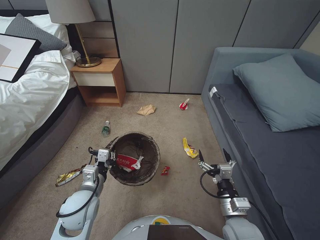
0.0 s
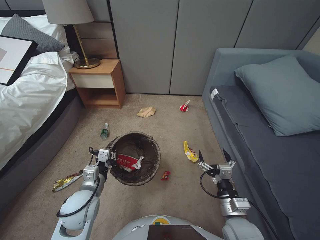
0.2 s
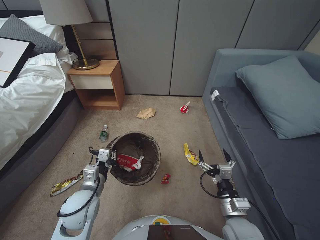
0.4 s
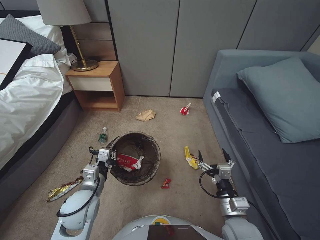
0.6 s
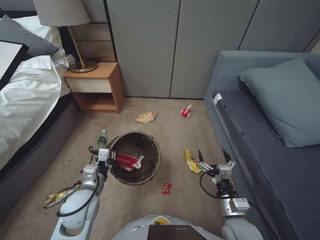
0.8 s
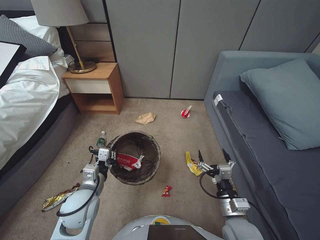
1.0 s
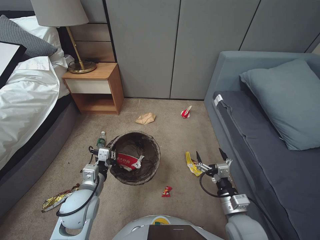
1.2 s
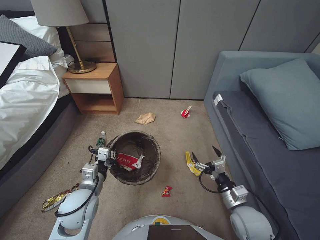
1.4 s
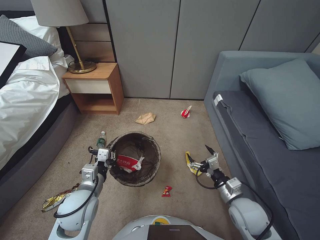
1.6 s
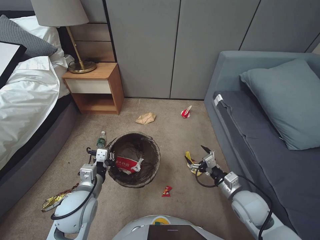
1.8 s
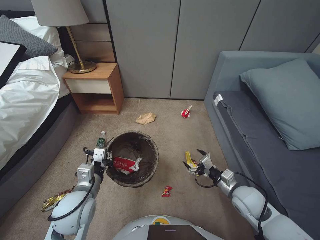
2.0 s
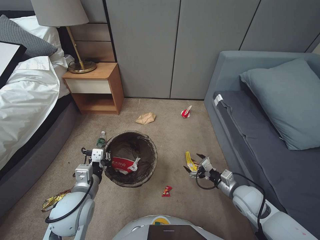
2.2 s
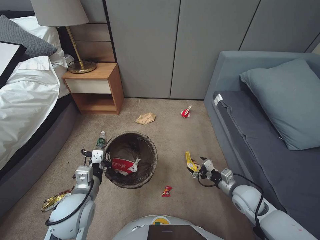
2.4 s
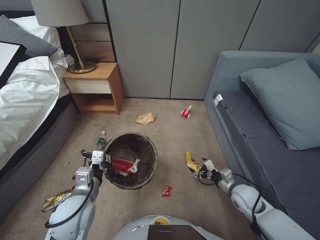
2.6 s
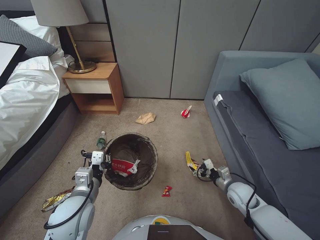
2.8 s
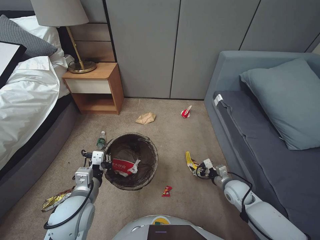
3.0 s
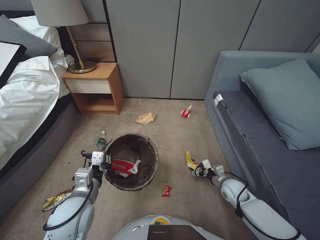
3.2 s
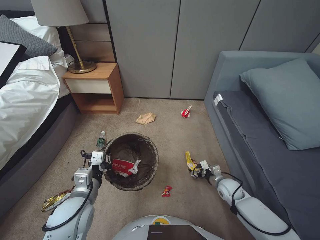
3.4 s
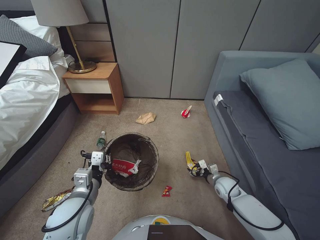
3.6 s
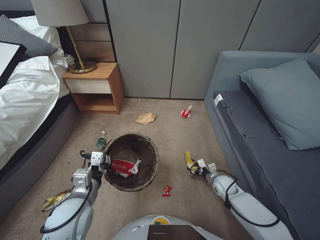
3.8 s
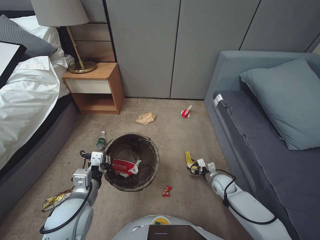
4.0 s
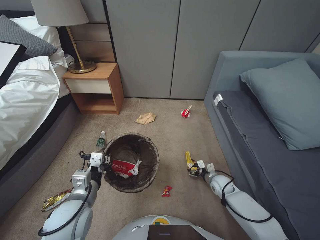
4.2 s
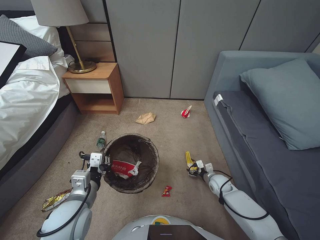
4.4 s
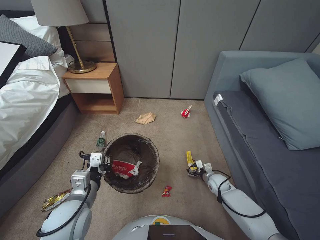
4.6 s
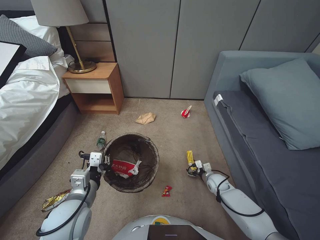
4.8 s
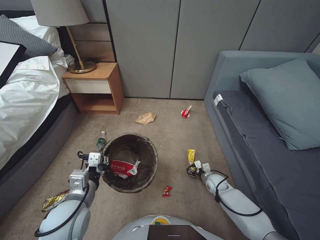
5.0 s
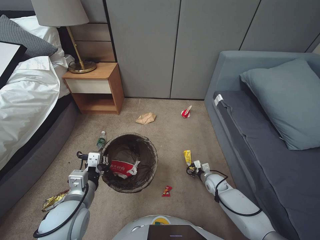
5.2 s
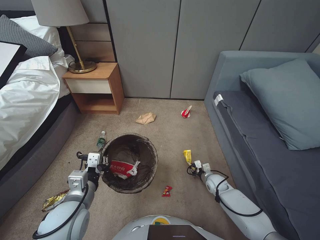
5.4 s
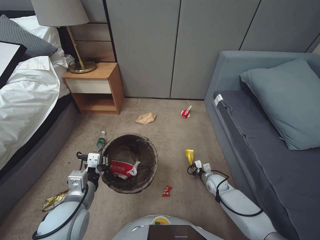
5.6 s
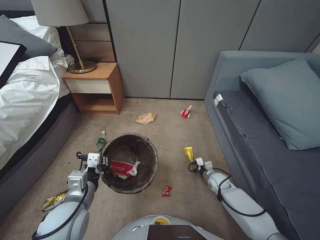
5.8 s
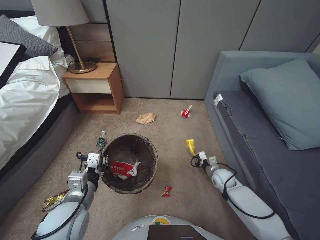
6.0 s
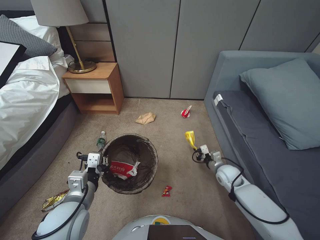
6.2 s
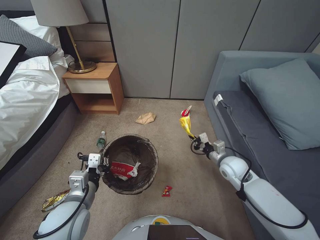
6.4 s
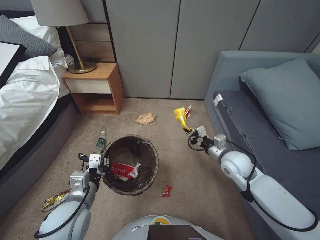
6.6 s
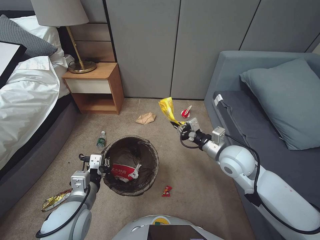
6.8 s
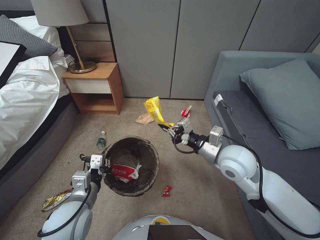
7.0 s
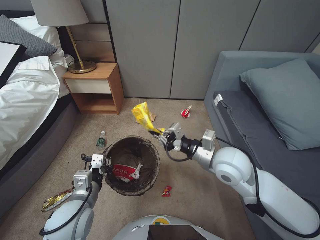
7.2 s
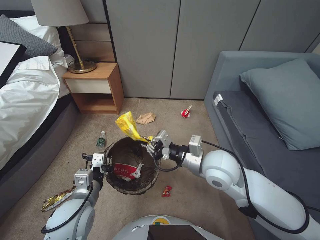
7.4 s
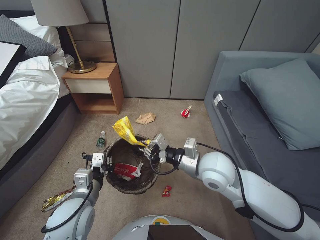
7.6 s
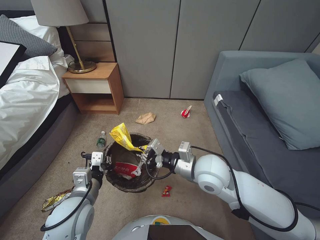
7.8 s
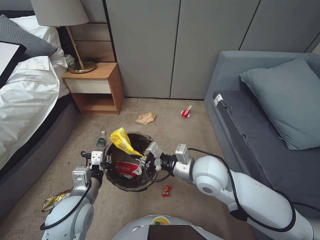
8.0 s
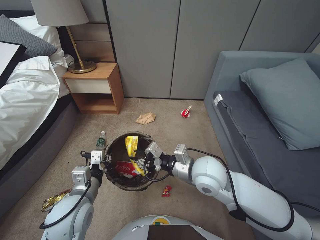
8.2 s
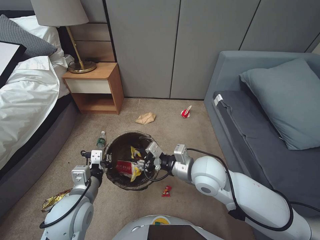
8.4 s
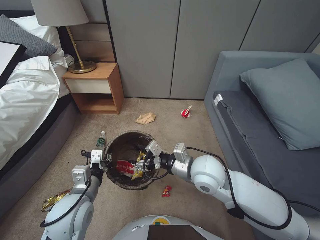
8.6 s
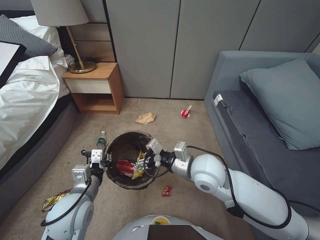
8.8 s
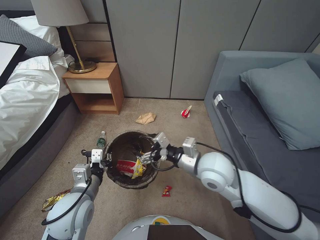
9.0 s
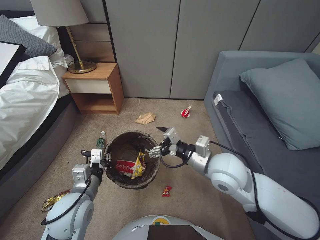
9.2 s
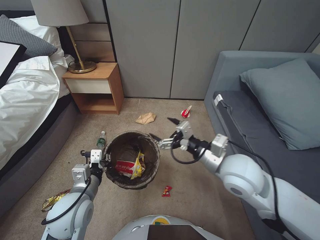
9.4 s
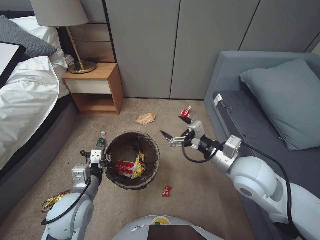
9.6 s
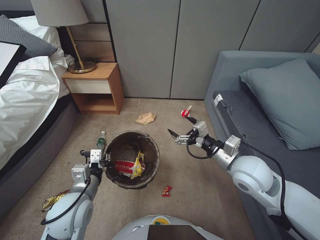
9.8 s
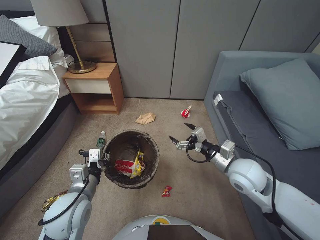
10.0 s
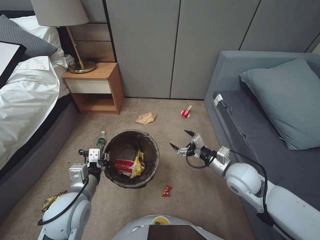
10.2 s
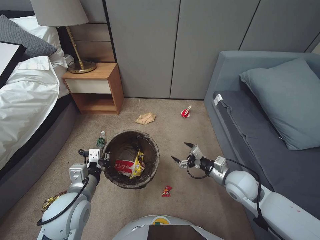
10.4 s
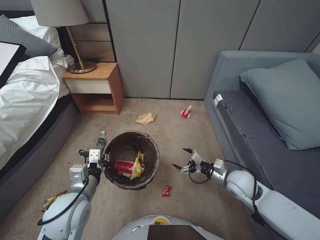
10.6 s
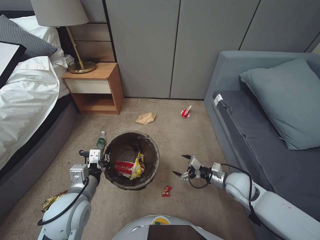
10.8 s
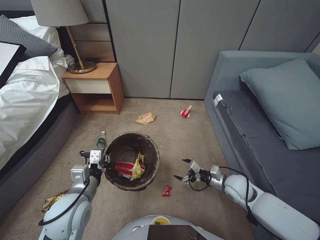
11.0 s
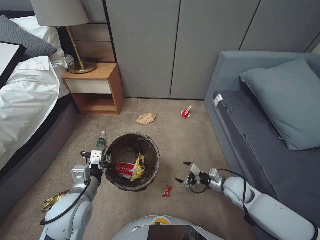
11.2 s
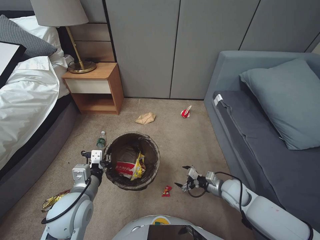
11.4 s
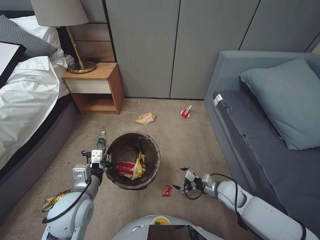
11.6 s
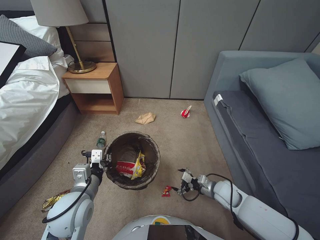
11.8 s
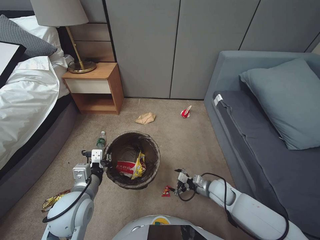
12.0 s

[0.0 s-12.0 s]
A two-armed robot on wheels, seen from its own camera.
Task of the whole recording: Pick up the trash bin, then pick up the garbage from the floor and place it into the trash bin.
0.0 to 1.6 s: The right gripper moves some 5 cm.
1.6 to 3.0 s: The right gripper shifts about 15 cm forward, downward and to the right.
3.0 to 4.4 s: The right gripper heads downward and forward, covering about 10 cm.
4.4 to 6.0 s: The right gripper closes.
6.0 to 7.6 s: The right gripper moves upward and to the left, approximately 35 cm.
7.6 to 9.0 s: The right gripper opens up.
9.0 to 10.4 s: The right gripper travels to the right and downward by some 15 cm.
10.4 to 12.0 s: The right gripper goes roughly 15 cm downward.

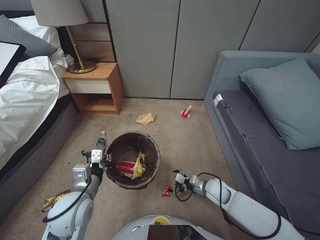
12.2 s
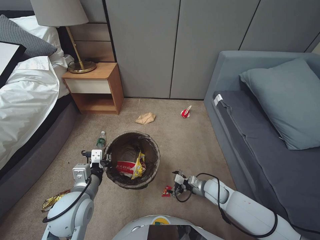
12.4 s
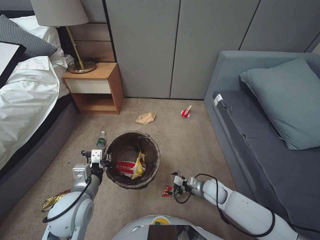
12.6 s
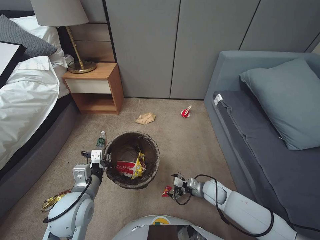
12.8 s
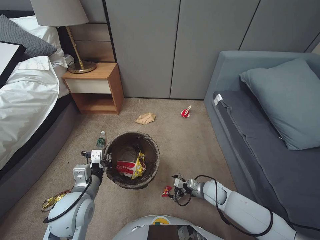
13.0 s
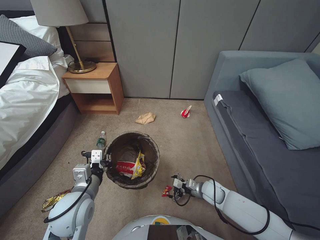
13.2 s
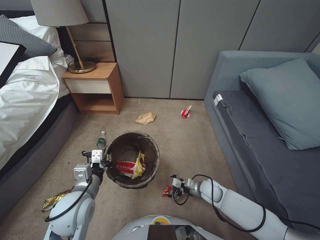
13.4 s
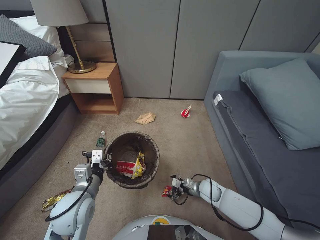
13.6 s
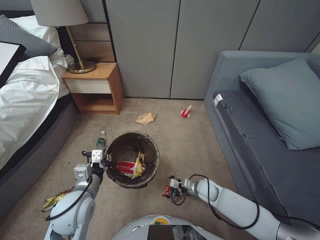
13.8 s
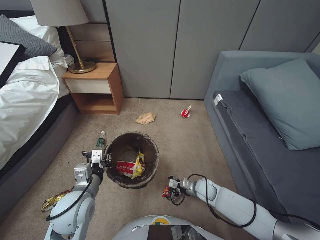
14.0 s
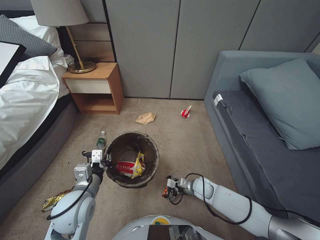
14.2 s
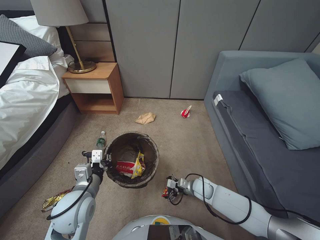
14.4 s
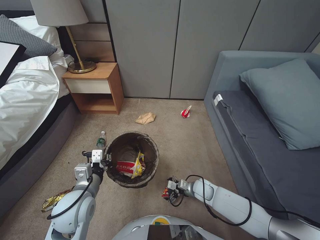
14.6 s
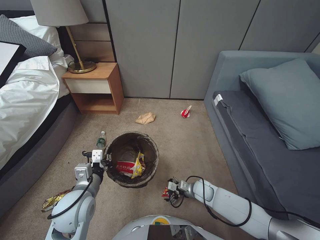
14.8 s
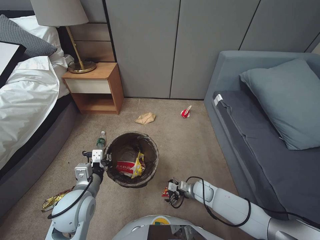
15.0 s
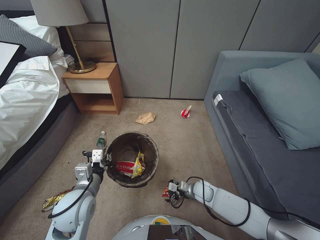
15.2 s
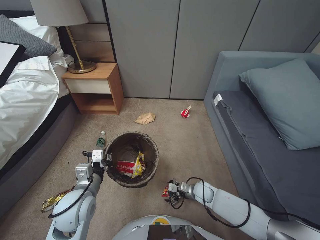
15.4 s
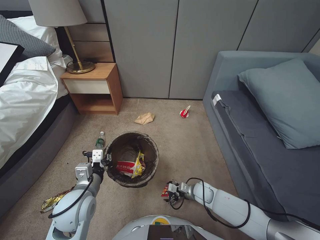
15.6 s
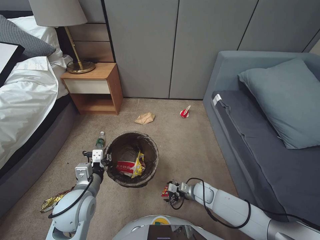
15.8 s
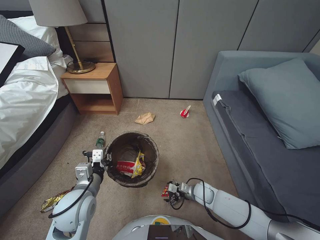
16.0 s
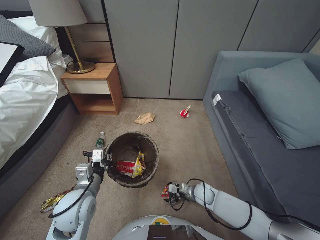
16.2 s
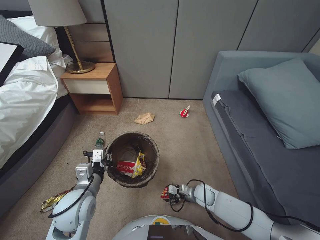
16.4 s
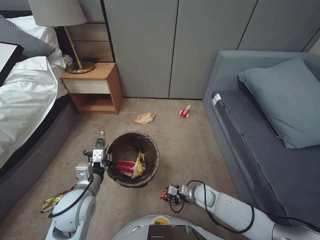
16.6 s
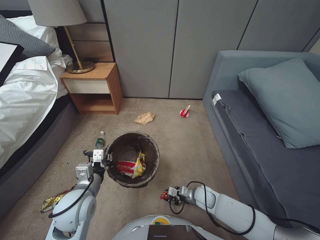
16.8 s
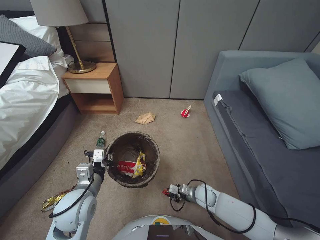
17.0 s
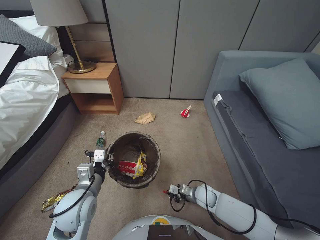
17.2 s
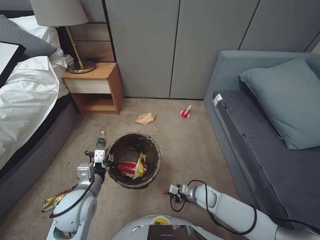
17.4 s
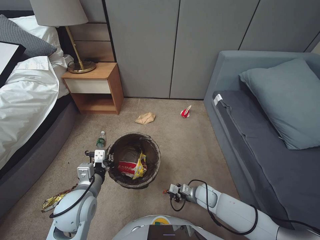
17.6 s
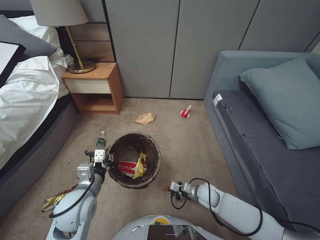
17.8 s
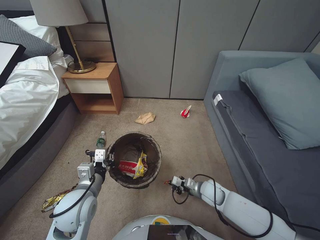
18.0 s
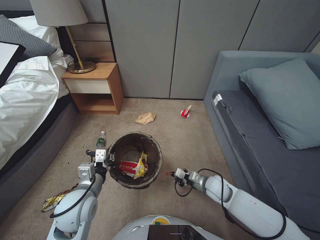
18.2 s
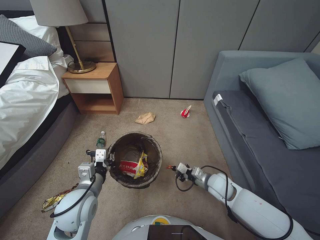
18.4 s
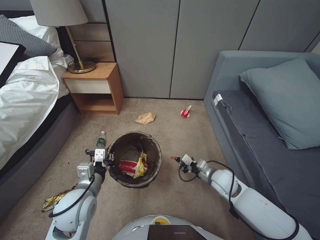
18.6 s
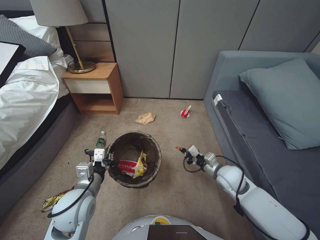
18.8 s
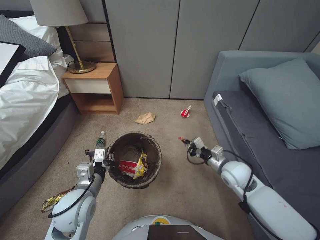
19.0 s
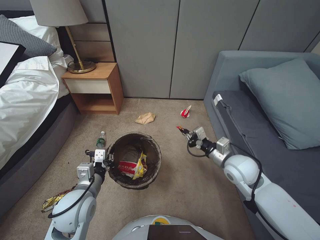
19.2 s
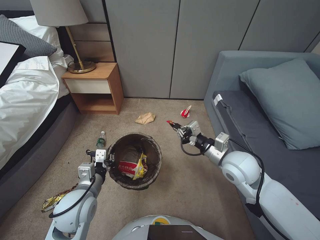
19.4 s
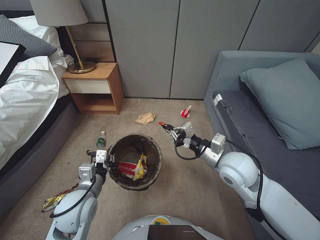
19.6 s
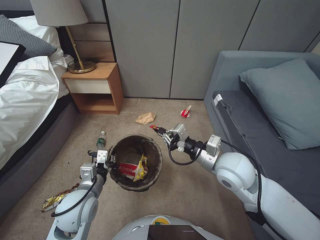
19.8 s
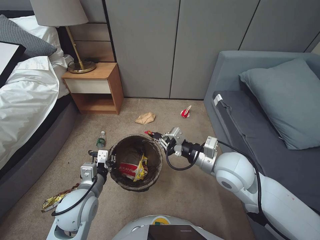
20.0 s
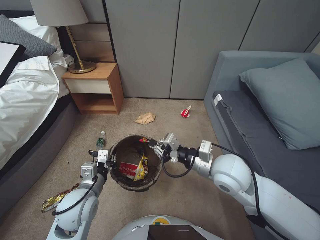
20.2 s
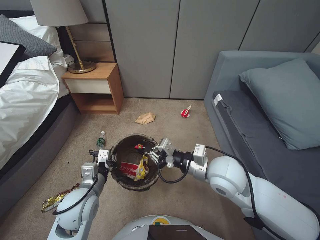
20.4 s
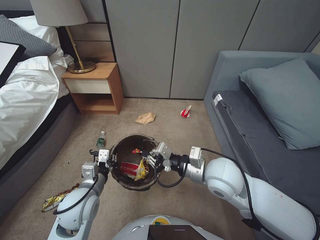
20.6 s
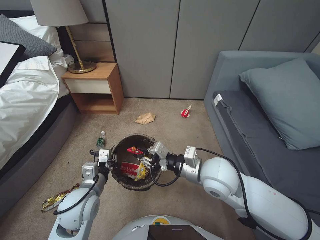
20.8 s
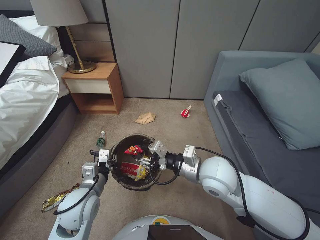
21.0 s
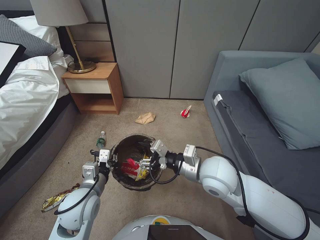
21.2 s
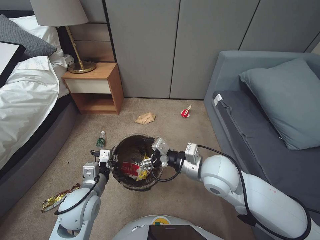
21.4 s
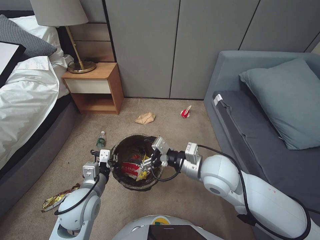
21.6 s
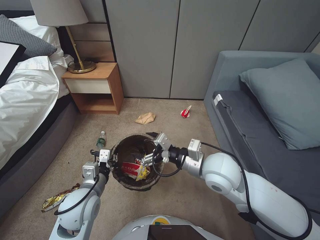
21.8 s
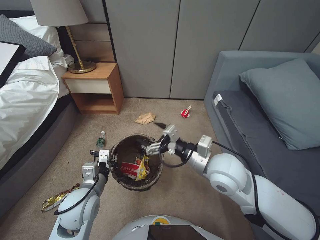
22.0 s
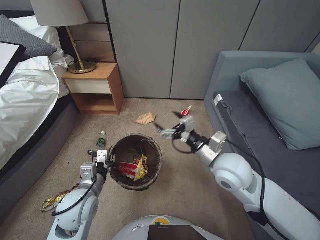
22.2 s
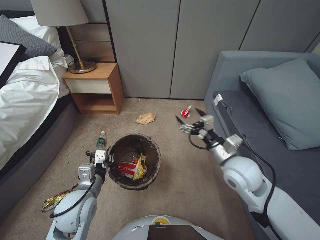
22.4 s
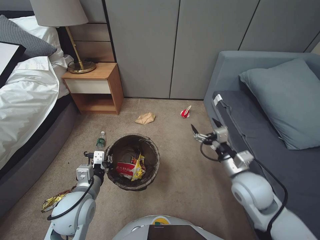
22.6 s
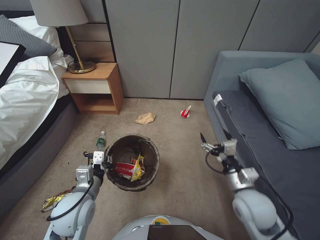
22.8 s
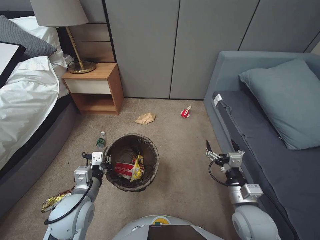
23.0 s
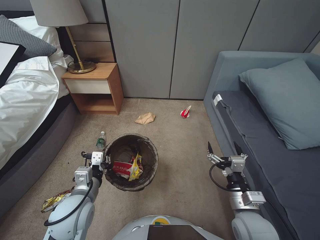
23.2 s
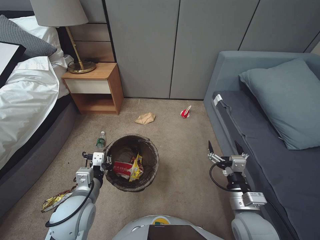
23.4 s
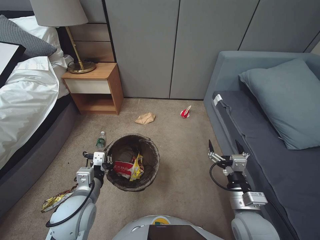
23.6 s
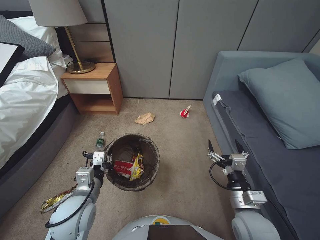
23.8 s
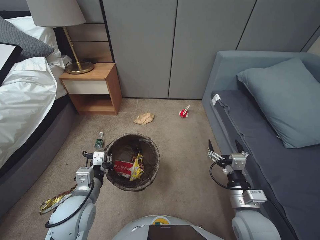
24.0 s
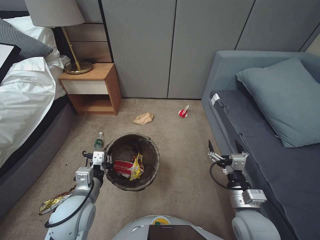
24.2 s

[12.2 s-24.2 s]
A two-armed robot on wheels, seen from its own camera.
Task of the whole recording: Pick up the trash bin, then pick up the garbage from the floor and place it into the trash bin.
12.2 to 13.8 s: The right gripper moves downward, roughly 5 cm.
13.8 to 15.2 s: There are only small adjustments of the grippers.
15.2 to 16.6 s: The right gripper closes its fingers.
16.6 to 18.2 s: The right gripper travels upward by roughly 10 cm, and closes.
18.2 to 19.8 s: The right gripper shifts about 25 cm upward.
19.8 to 21.2 s: The right gripper travels to the left by approximately 5 cm, and opens its fingers.
21.2 to 22.6 s: The right gripper goes roughly 10 cm to the right, and opens.
22.6 to 24.2 s: The right gripper travels backward and downward by roughly 15 cm.
